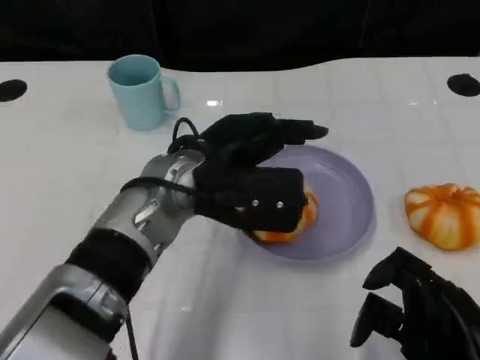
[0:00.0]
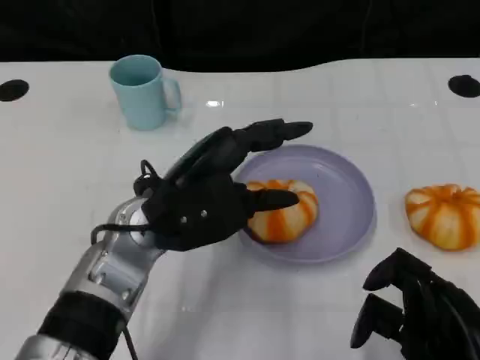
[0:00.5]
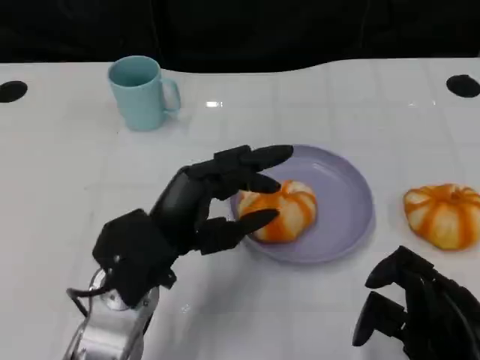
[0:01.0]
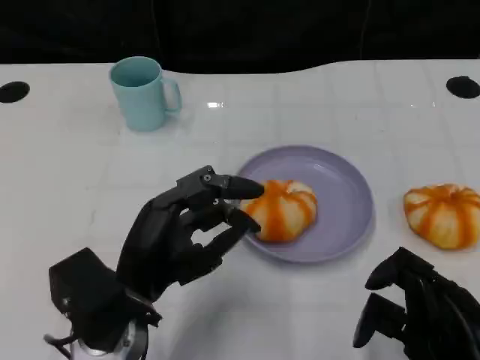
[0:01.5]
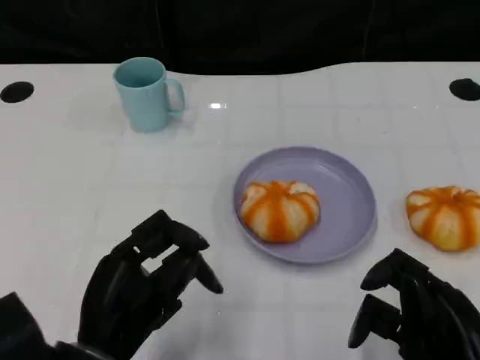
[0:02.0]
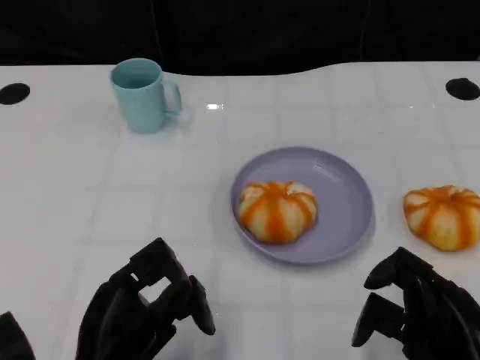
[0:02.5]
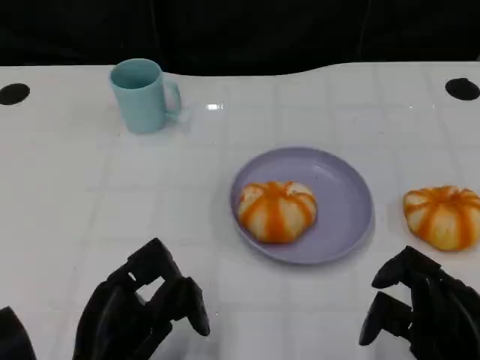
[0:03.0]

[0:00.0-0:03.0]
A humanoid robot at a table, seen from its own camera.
Task of the whole recording: Grasp the bread from the table and place it into the plate.
0:00.0 to 0:01.5: The left hand is displaced backward, to the left and downward by approximately 15 cm.
0:01.5 to 0:03.0: The left hand shifts roughly 5 cm backward.

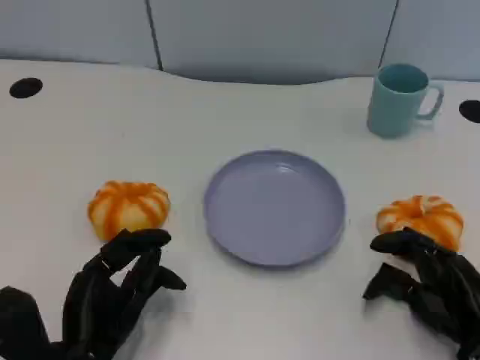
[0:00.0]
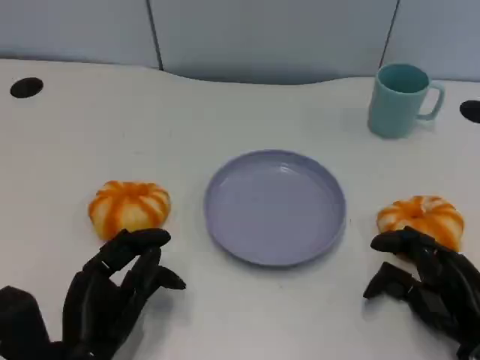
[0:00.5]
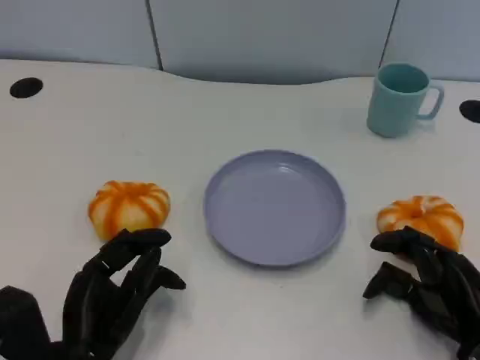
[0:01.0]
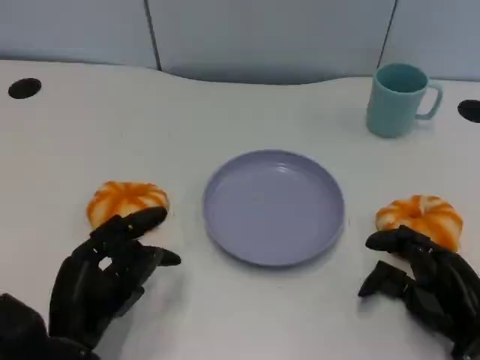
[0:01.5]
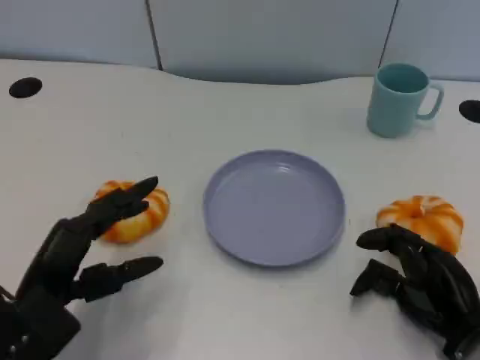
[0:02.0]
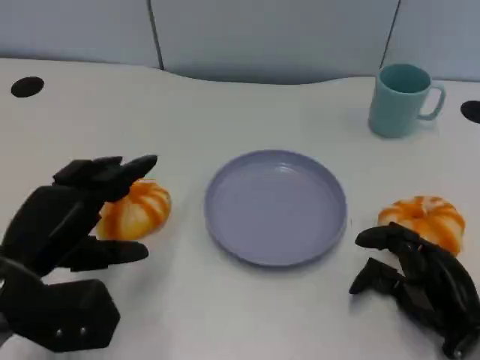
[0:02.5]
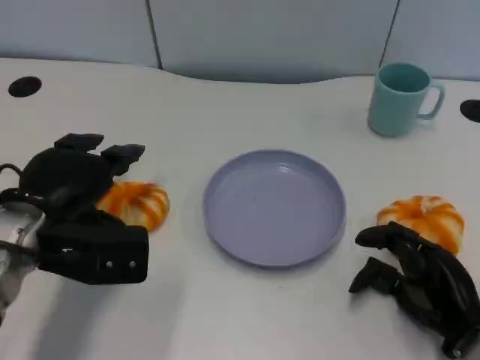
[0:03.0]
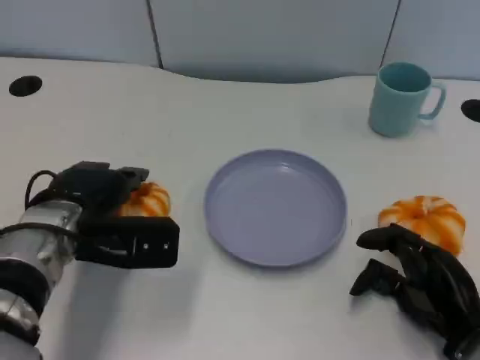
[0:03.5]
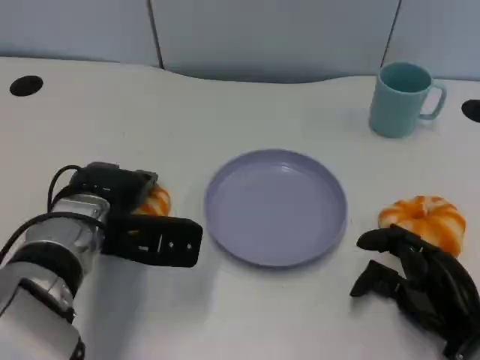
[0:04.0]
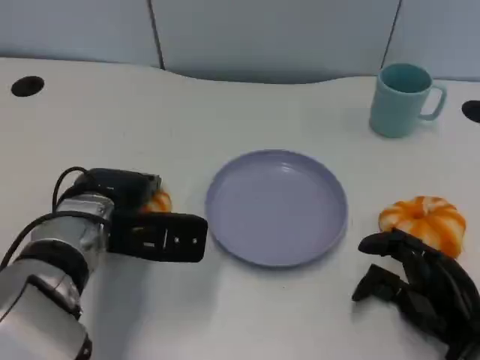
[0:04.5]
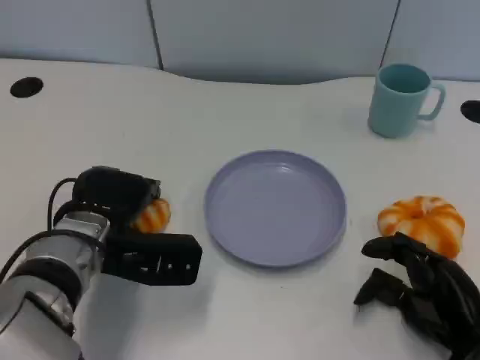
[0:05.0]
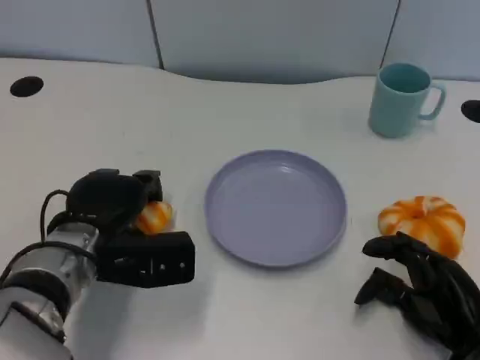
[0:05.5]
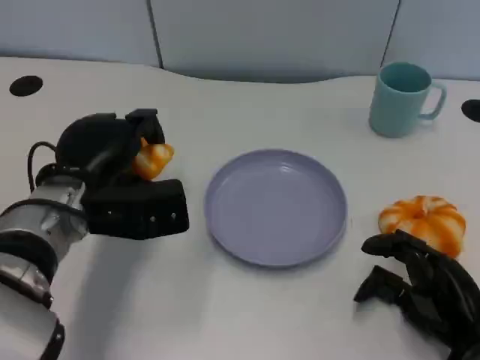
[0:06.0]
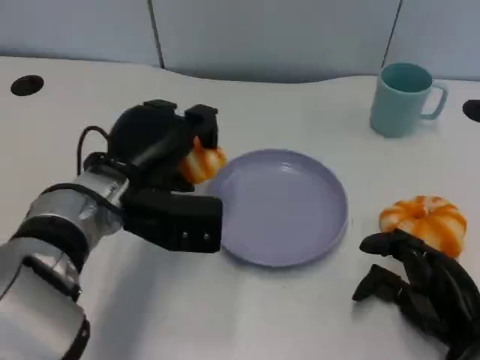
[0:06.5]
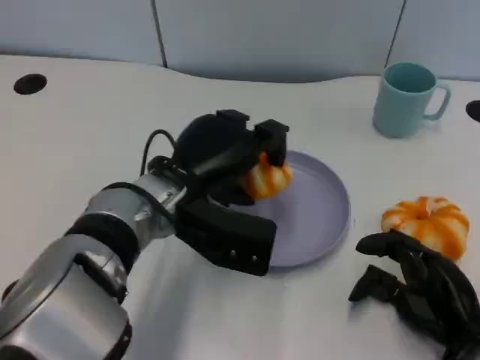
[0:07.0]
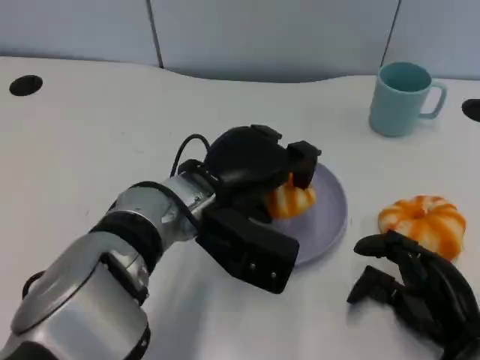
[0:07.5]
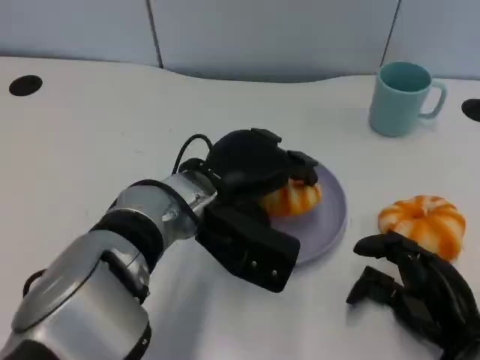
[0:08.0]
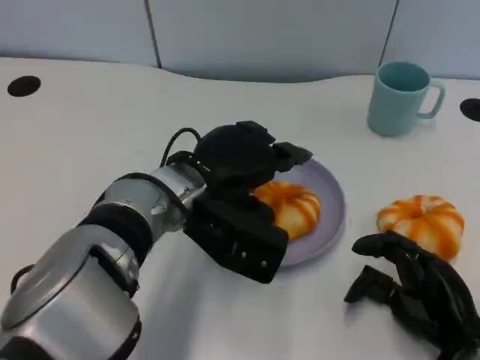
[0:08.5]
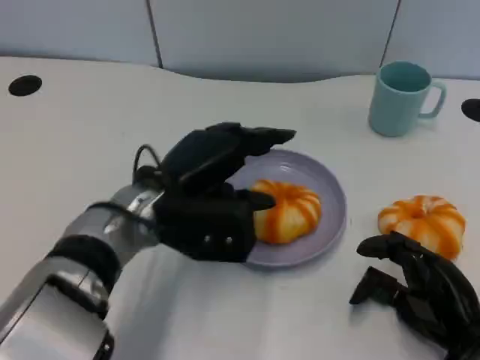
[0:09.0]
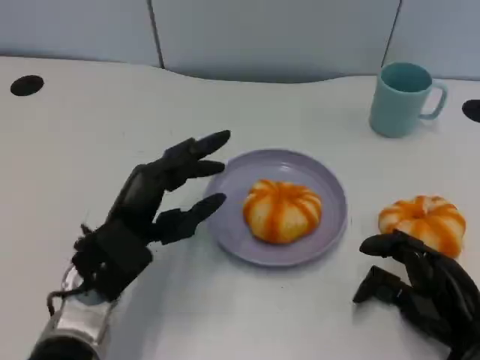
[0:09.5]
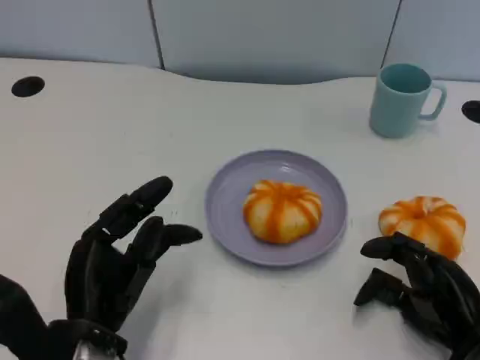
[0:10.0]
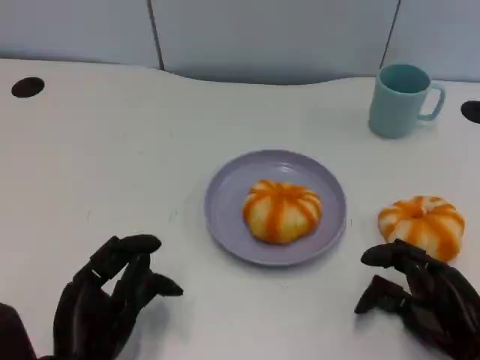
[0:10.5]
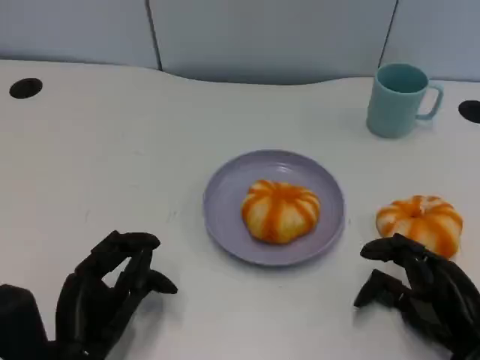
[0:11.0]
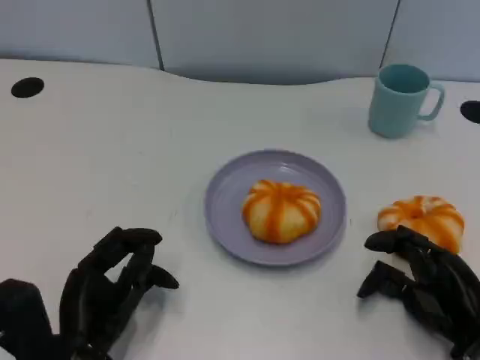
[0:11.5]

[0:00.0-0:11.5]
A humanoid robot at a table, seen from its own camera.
Task of the whole recording: Grasp the bread from the table and place it into the plate.
0:00.0 to 0:02.0: The left hand moves some 5 cm.
0:02.0 to 0:04.0: The left hand heads forward and to the right, covering approximately 15 cm.
0:06.0 to 0:07.5: The left hand moves to the right, some 10 cm.
0:07.5 to 0:09.5: The left hand goes approximately 10 cm to the left, backward and downward.
0:09.5 to 0:11.5: The left hand moves backward, approximately 5 cm.

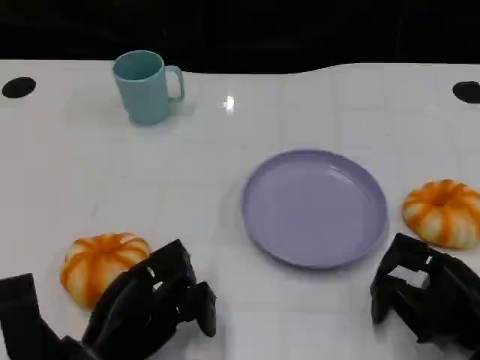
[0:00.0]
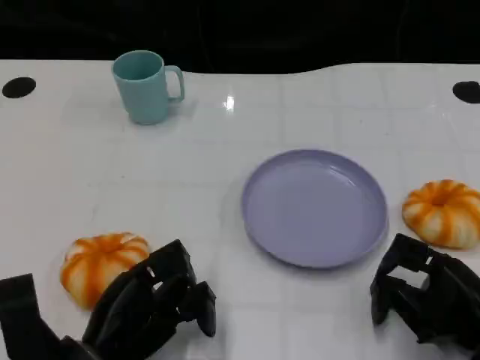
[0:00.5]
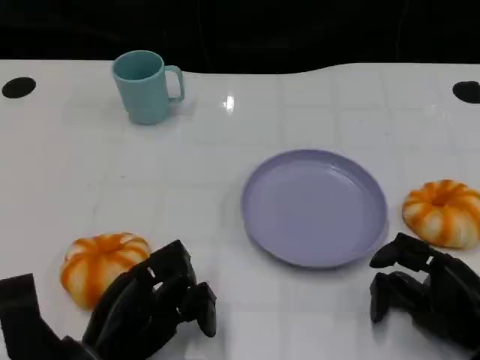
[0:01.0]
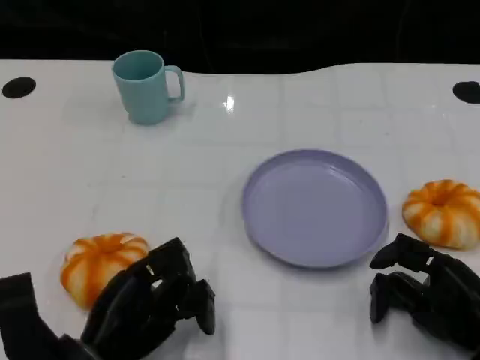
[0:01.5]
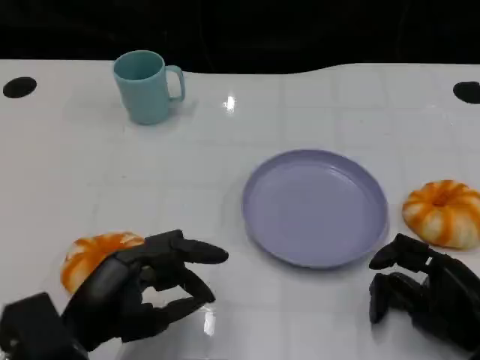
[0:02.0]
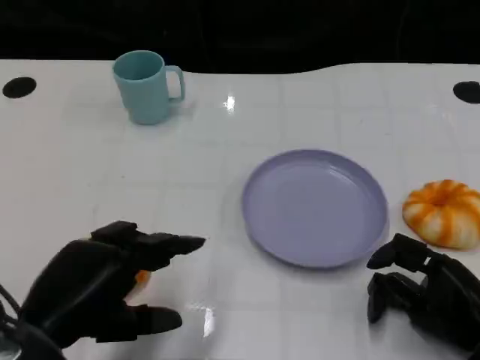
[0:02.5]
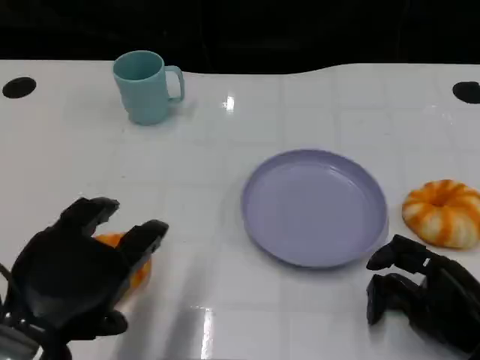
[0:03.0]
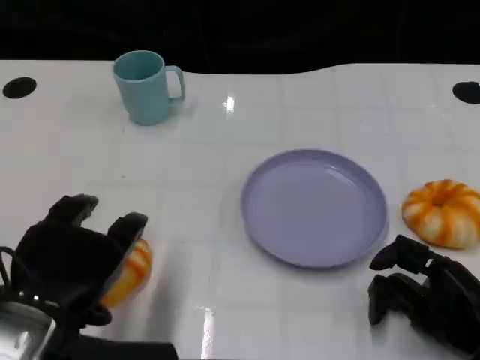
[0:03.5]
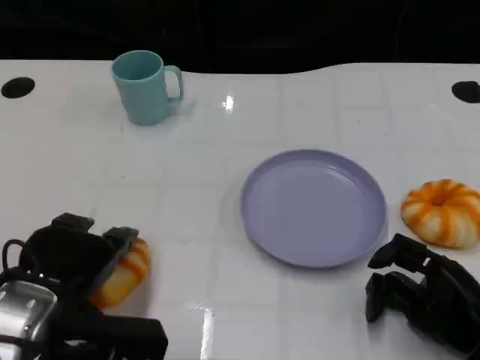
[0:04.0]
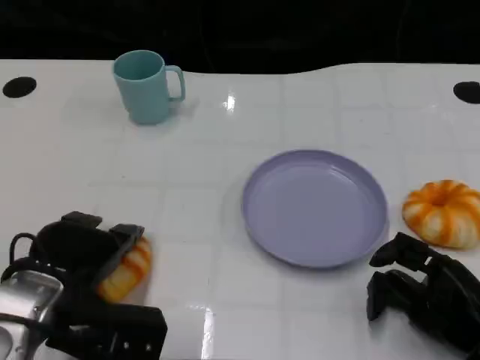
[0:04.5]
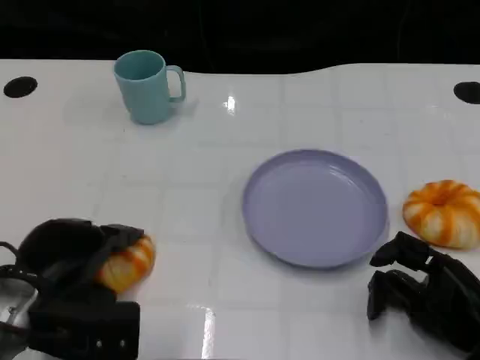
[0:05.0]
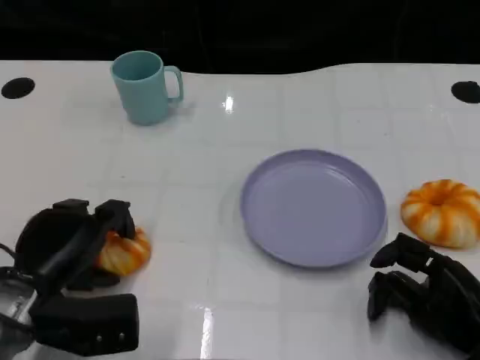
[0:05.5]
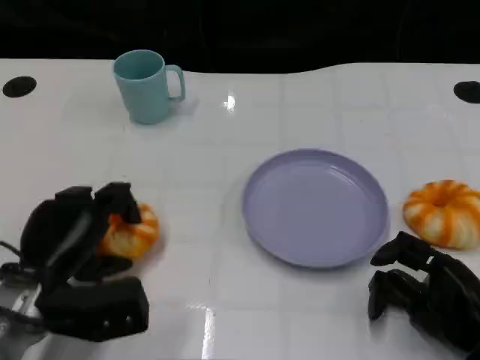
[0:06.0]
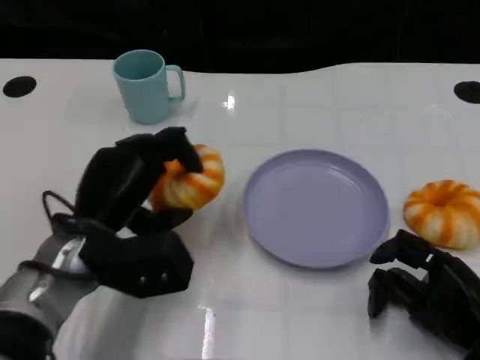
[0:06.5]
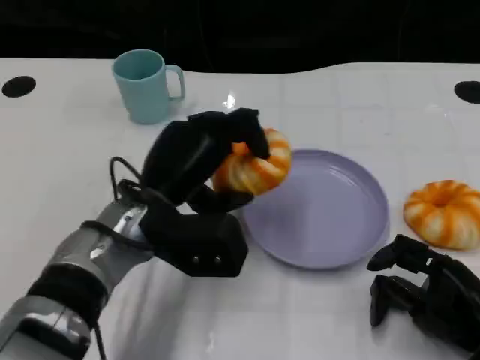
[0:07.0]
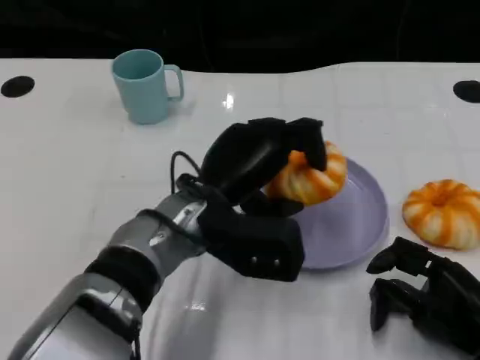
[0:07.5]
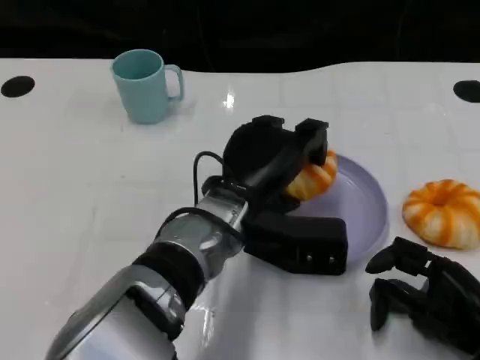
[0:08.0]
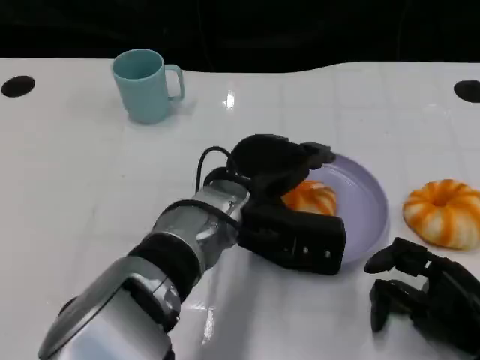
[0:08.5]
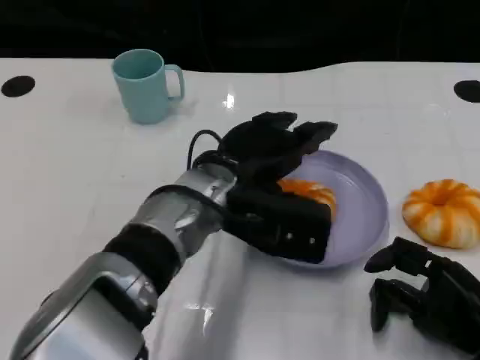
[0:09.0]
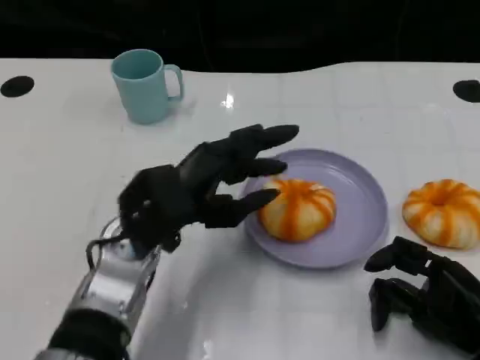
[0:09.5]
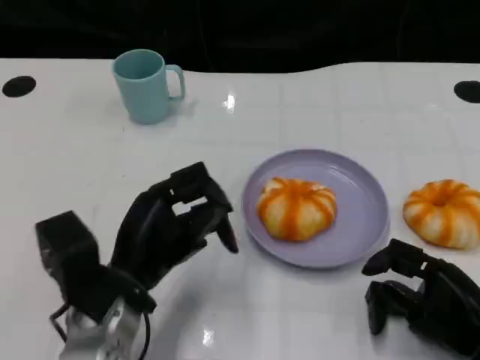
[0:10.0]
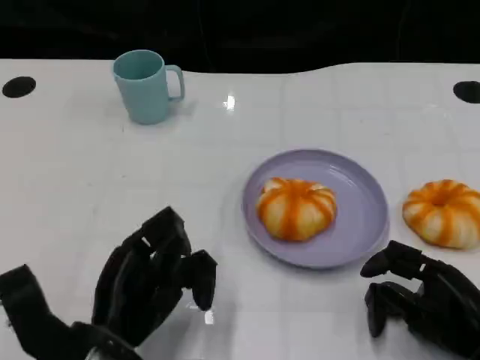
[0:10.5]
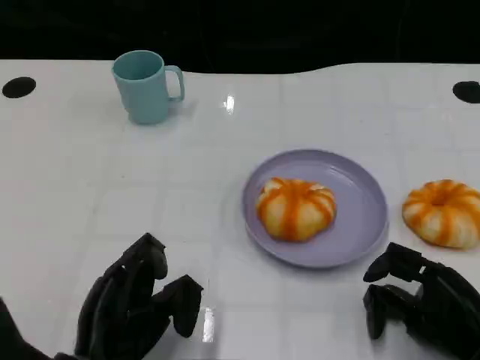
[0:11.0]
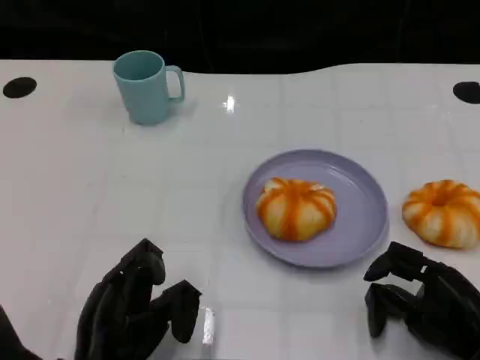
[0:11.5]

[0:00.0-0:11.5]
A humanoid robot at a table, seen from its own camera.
Task of the whole recording: Grasp the bread from the table and place it into the plate.
0:04.0 to 0:06.0: The left hand moves about 5 cm.
0:06.0 to 0:07.5: The left hand is displaced to the right by roughly 15 cm.
0:07.5 to 0:09.5: The left hand travels to the left by approximately 5 cm.
0:09.5 to 0:11.5: The left hand travels backward, downward and to the left by some 15 cm.
